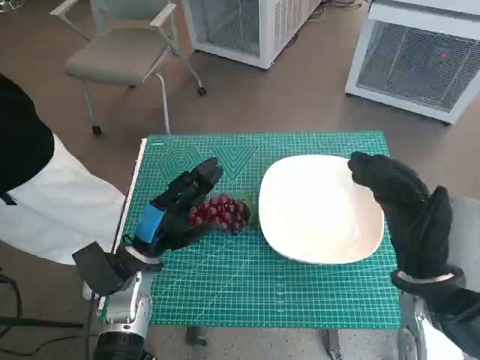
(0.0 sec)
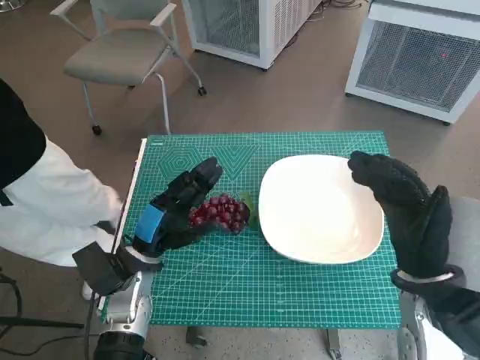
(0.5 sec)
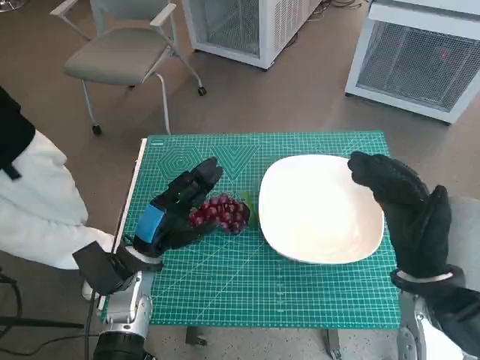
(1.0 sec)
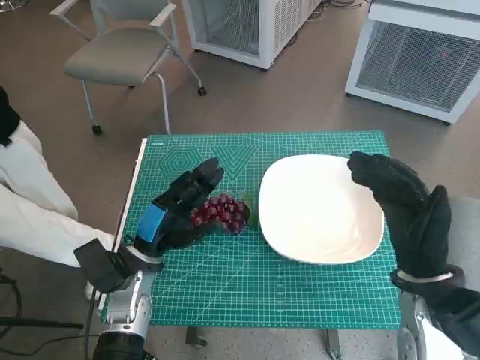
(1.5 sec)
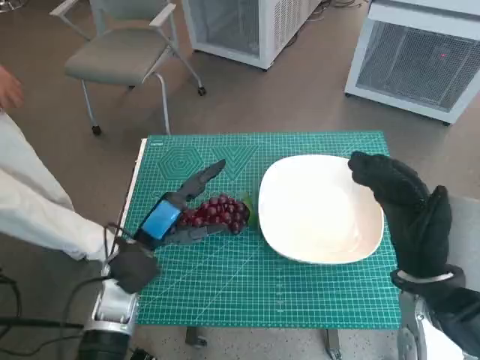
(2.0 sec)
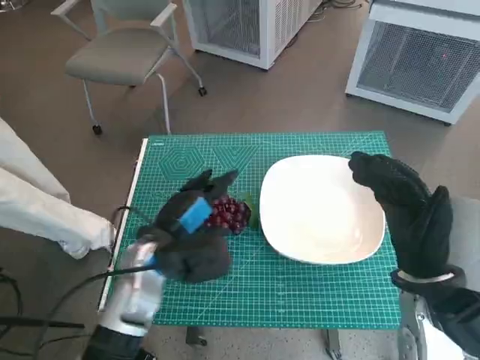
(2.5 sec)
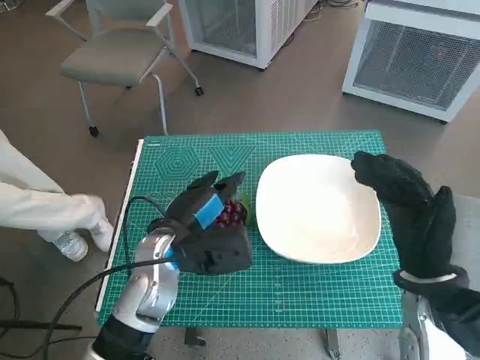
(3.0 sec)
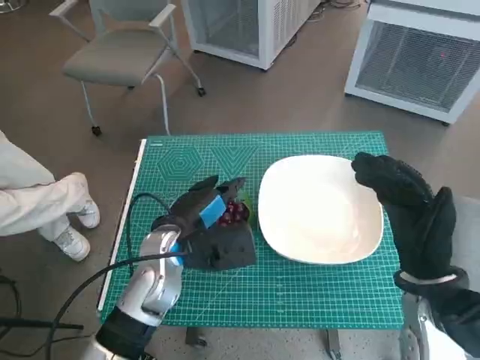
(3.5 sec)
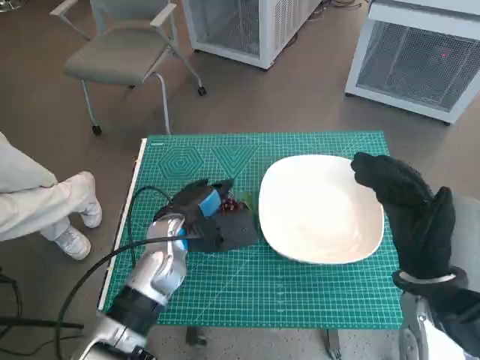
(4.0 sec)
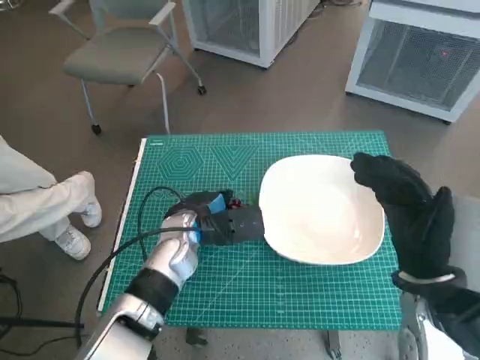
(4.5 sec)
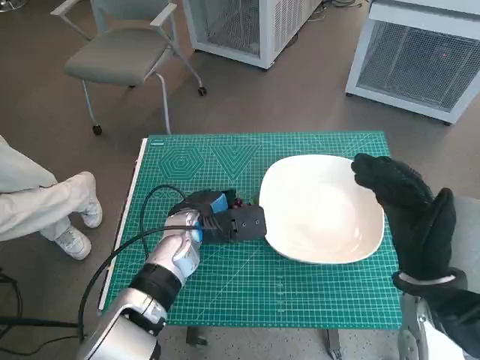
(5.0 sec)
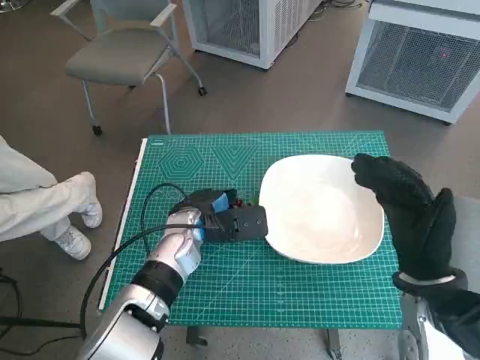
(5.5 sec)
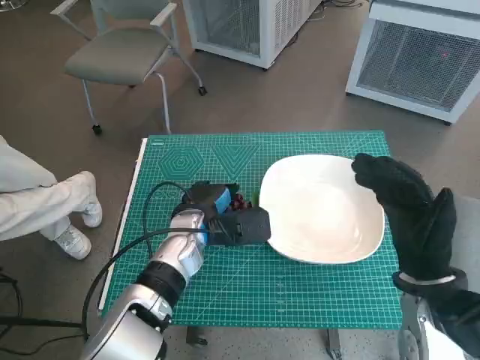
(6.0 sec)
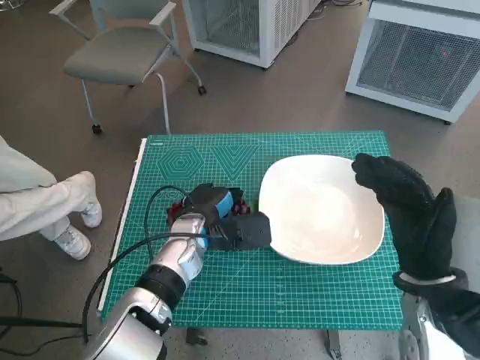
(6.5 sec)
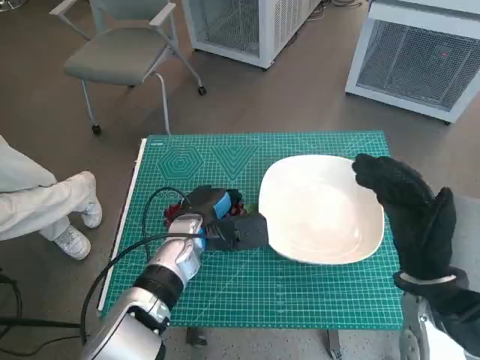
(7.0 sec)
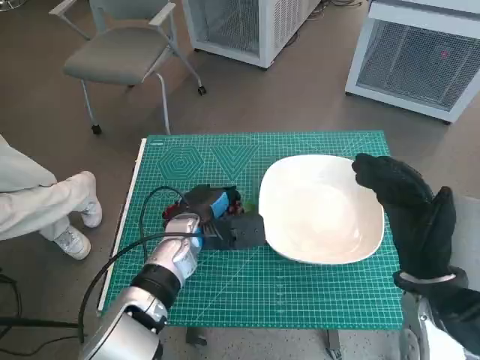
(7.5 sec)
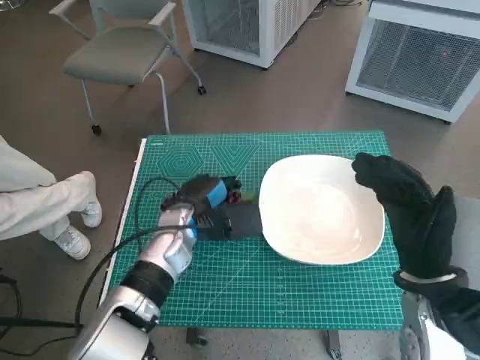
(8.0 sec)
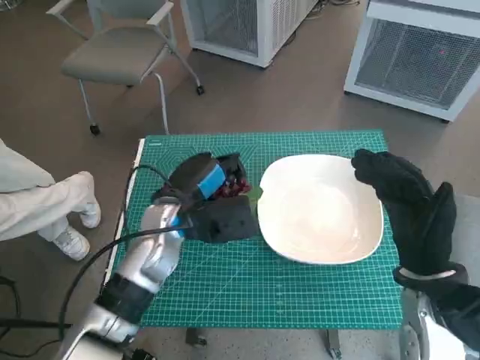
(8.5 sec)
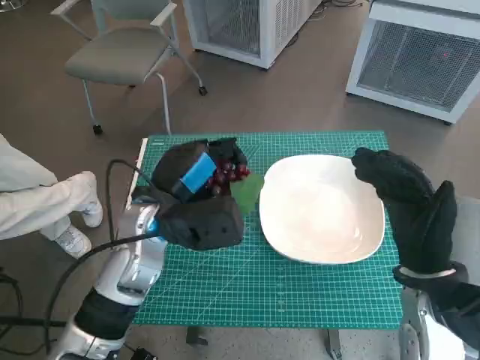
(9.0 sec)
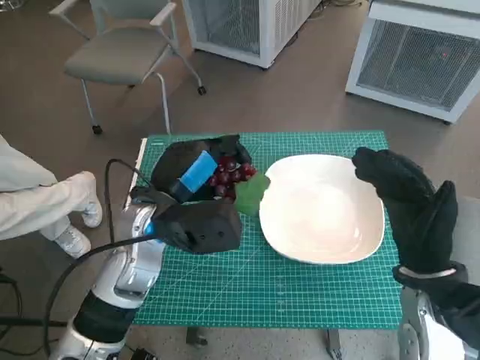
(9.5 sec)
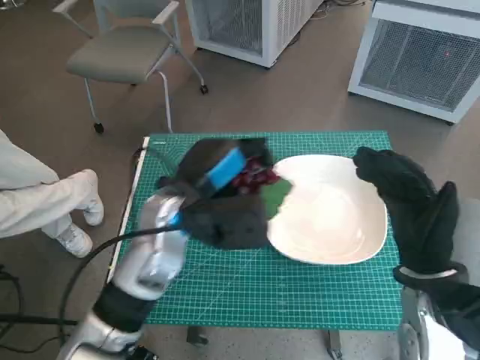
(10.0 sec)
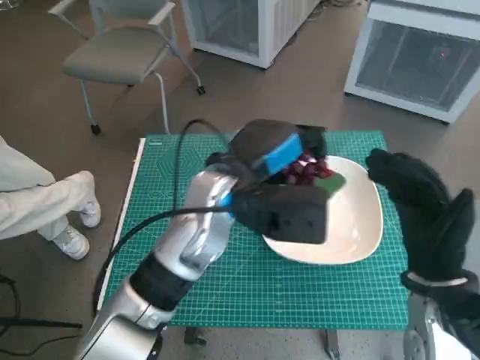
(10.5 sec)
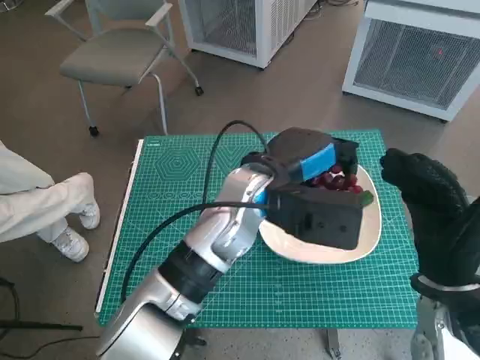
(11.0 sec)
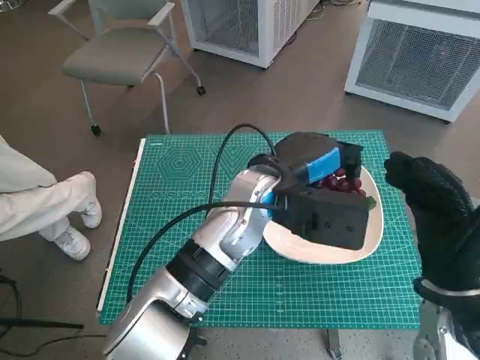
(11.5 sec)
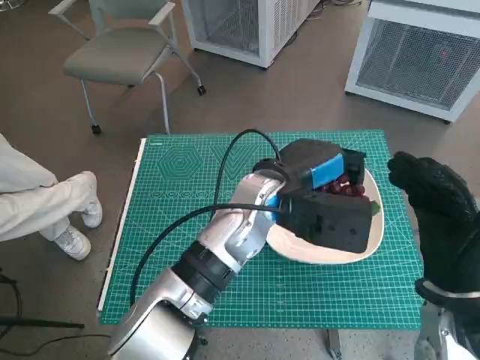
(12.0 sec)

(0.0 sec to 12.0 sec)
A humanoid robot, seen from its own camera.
Task of the whole recording: Pick up the grapes and put them on the plate.
Step, 0.0 sec - 7.0 sec: Grasp the grapes with left hand.
2.0 sec - 4.0 sec: The left hand moves to the right, approximately 5 cm.
4.0 sec - 8.0 sec: The hands make only small movements.
8.0 sec - 10.0 sec: The left hand moves upward, about 10 cm.
10.0 sec - 12.0 sec: The left hand goes approximately 10 cm to the right.

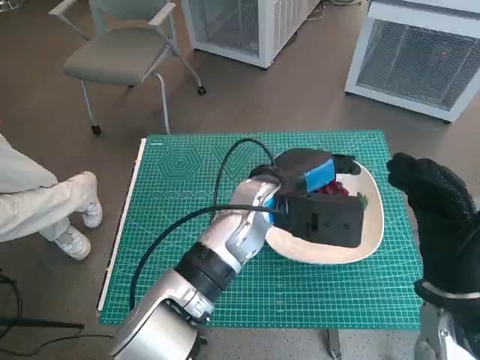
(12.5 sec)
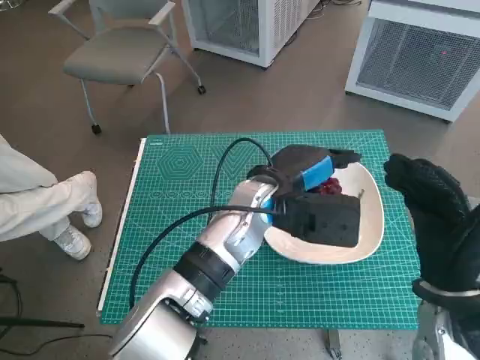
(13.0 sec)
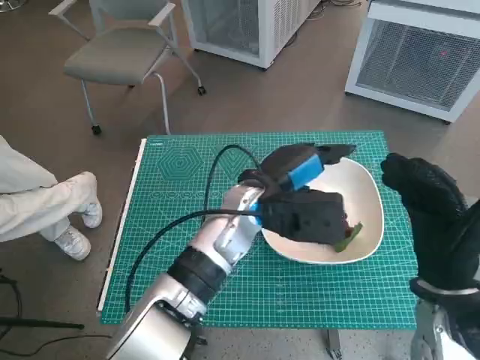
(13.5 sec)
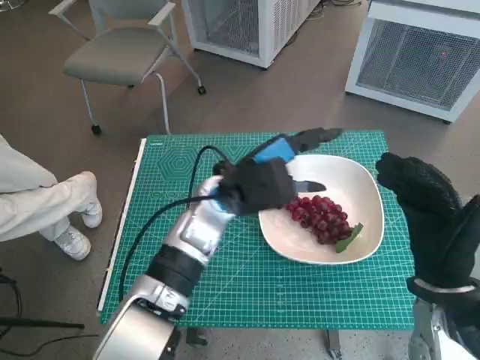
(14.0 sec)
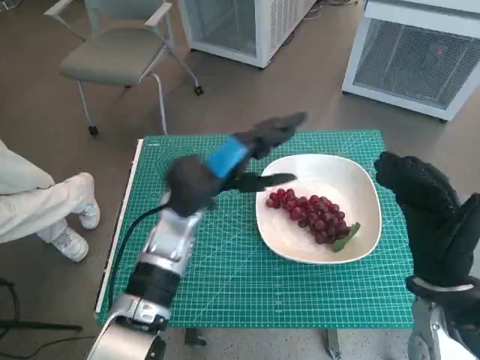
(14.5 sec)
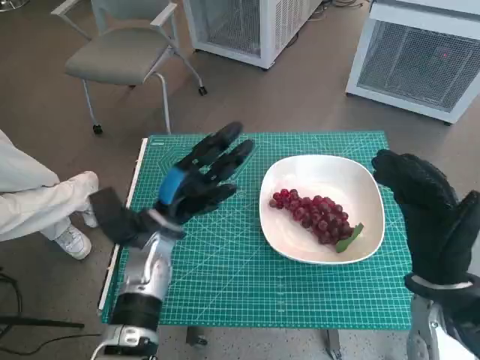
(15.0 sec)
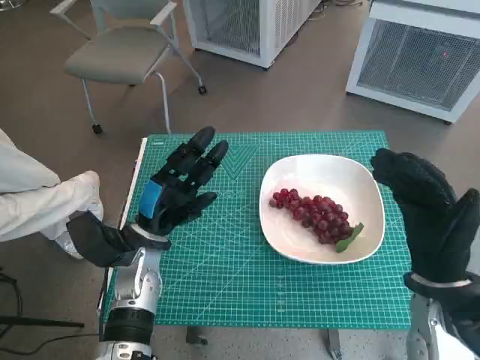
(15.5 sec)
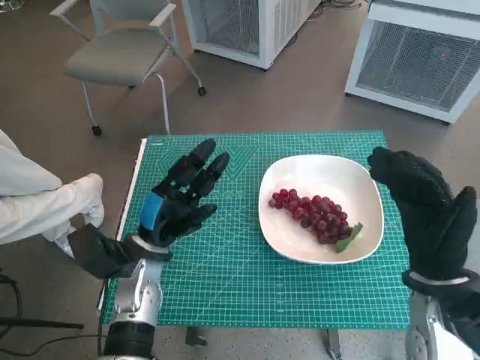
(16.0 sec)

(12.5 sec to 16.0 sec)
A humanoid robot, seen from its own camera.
Task of the whole recording: Pick up the grapes and put them on the plate.
12.5 sec - 14.5 sec: The left hand shifts roughly 10 cm to the left.
14.5 sec - 16.0 sec: The left hand goes approximately 15 cm to the left, downward and backward.

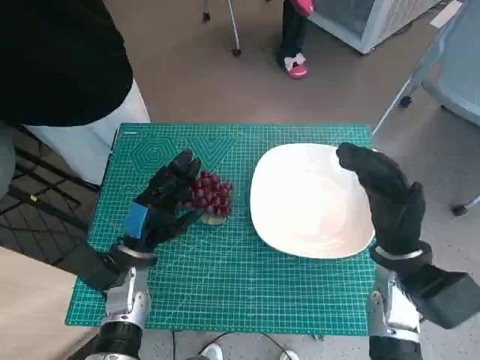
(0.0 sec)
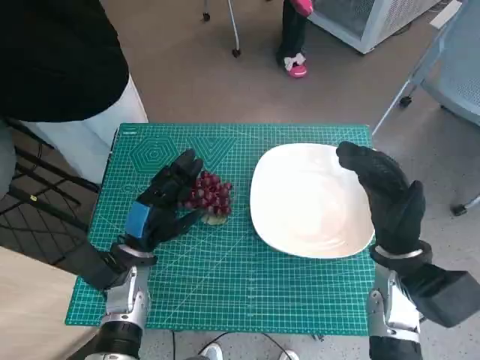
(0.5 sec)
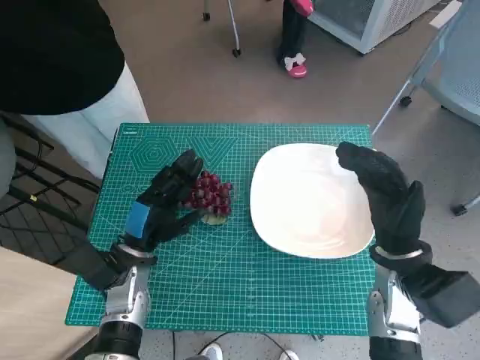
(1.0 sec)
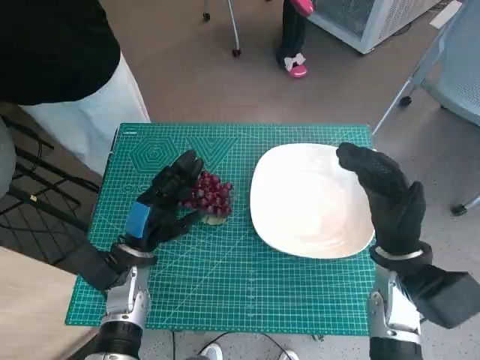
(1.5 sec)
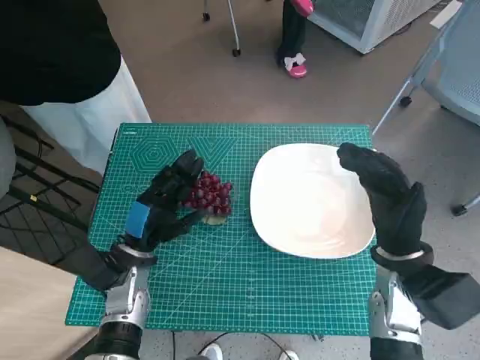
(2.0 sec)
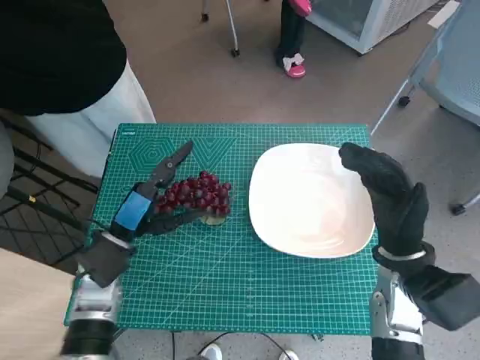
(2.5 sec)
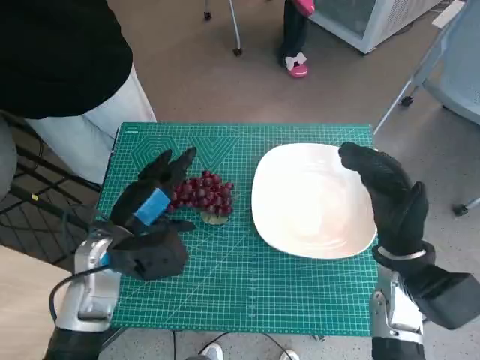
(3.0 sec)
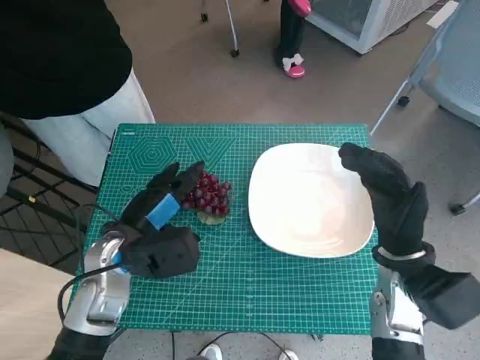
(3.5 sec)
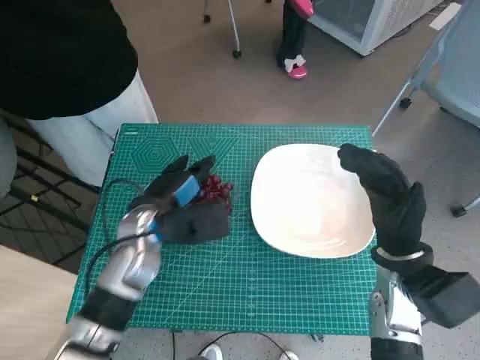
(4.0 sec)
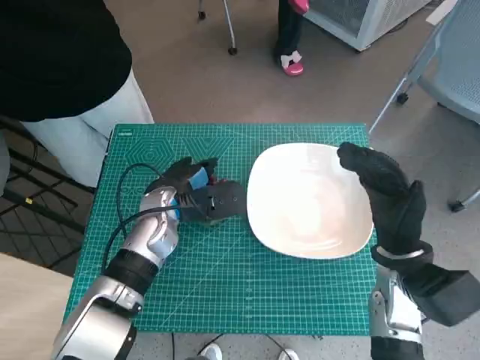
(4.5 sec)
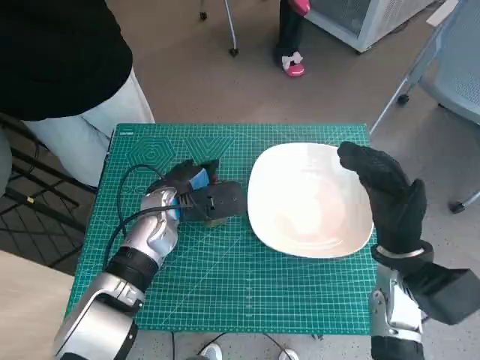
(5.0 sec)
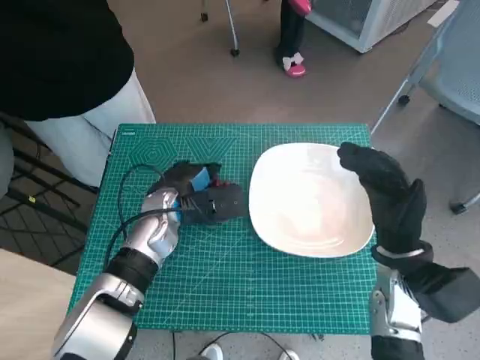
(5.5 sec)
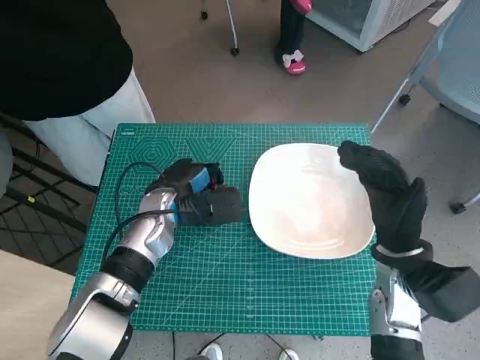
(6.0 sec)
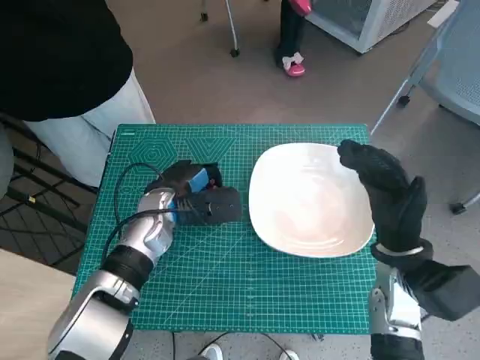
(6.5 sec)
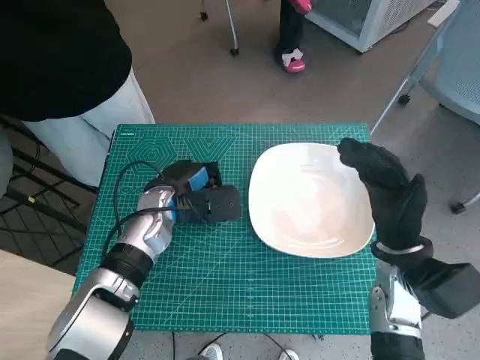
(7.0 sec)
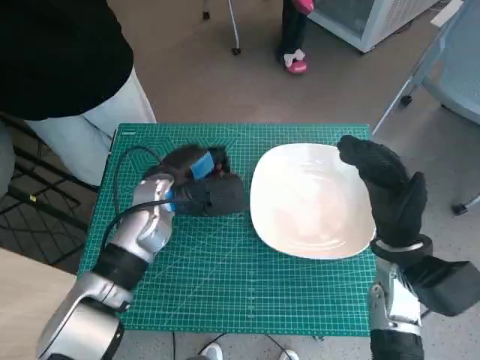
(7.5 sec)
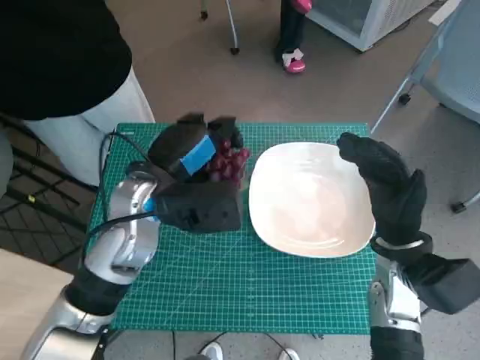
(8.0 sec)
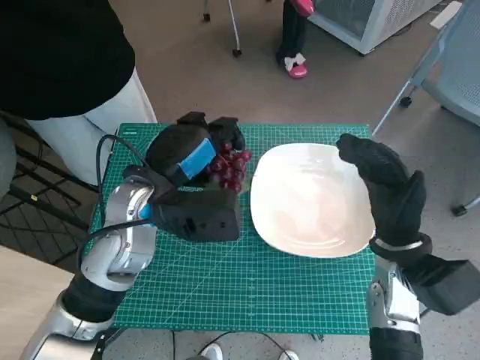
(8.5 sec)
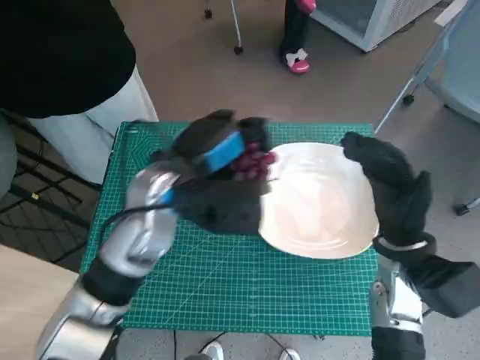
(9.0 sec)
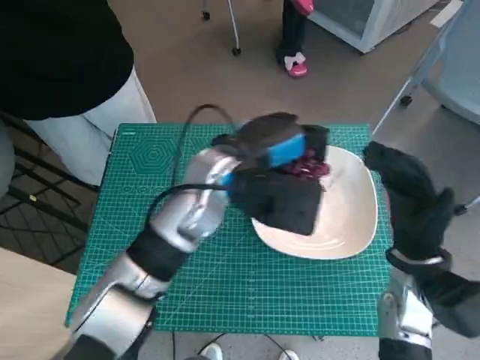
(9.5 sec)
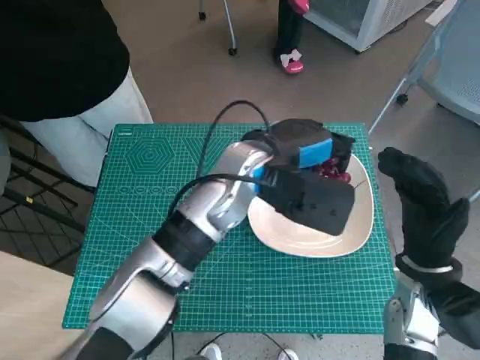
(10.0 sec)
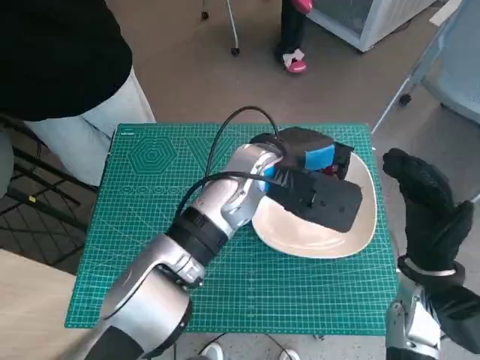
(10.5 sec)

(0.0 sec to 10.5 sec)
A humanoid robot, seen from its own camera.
Task of the whole recording: Pick up the grapes and put them on the plate.
Step, 0.0 sec - 5.5 sec: Grasp the grapes with left hand.
2.0 sec - 4.0 sec: The left hand moves upward, approximately 5 cm.
4.0 sec - 6.5 sec: The left hand moves roughly 5 cm.
6.5 sec - 8.5 sec: The left hand heads upward, covering approximately 10 cm.
8.5 sec - 10.5 sec: The left hand goes some 15 cm to the right and forward.
